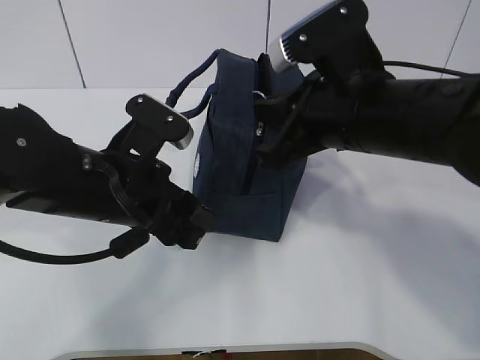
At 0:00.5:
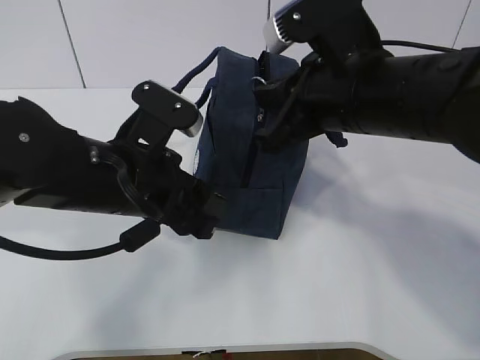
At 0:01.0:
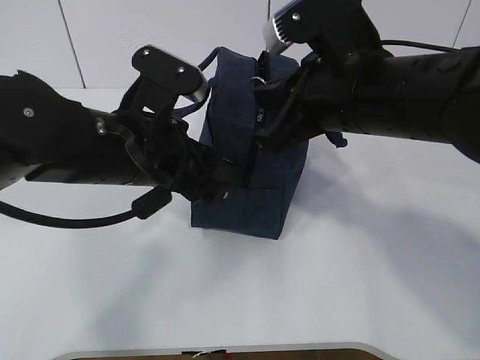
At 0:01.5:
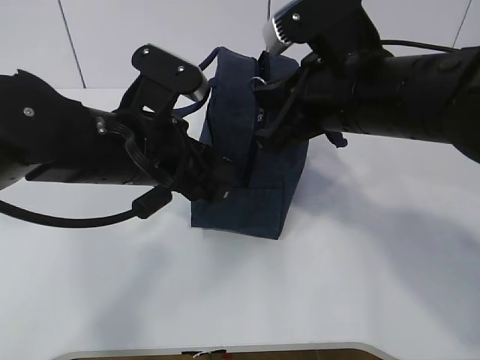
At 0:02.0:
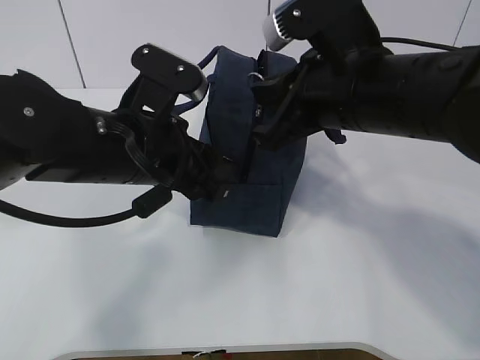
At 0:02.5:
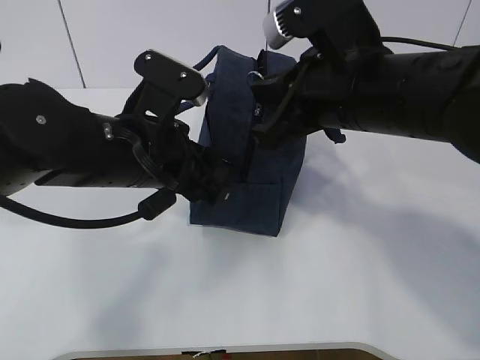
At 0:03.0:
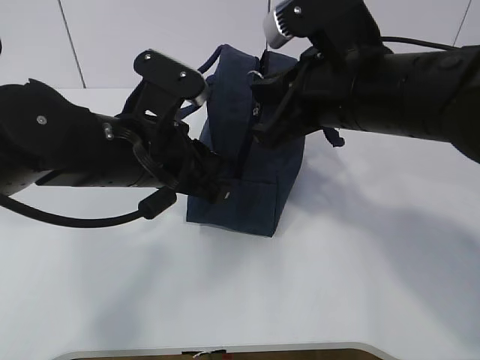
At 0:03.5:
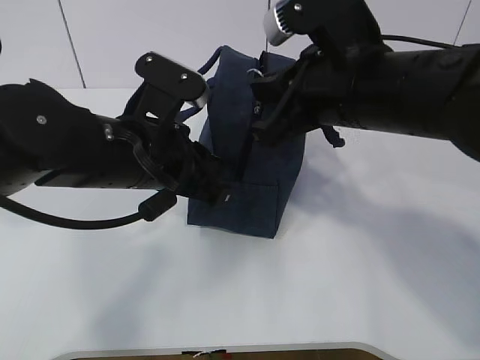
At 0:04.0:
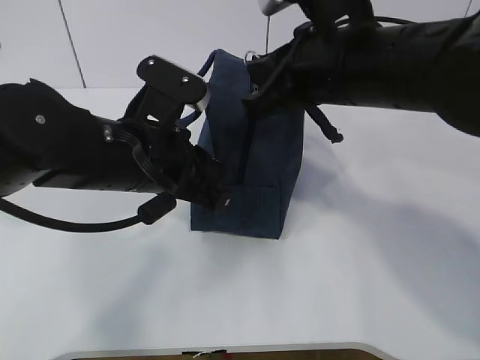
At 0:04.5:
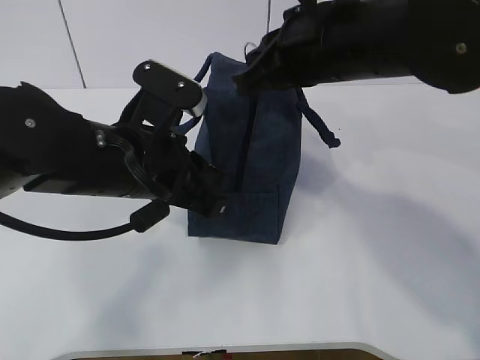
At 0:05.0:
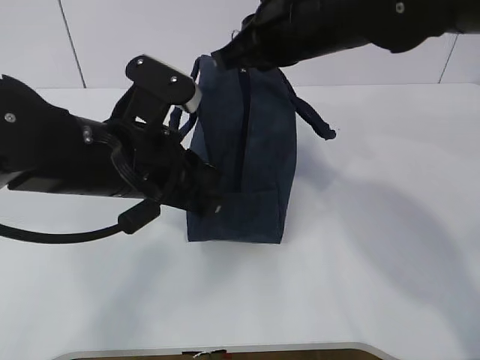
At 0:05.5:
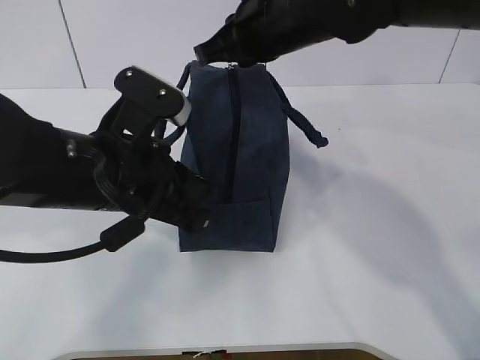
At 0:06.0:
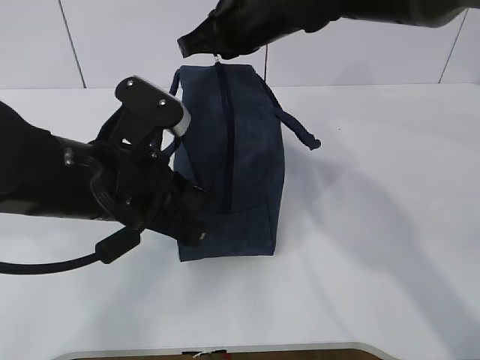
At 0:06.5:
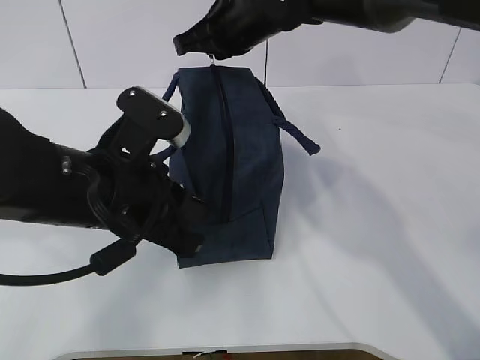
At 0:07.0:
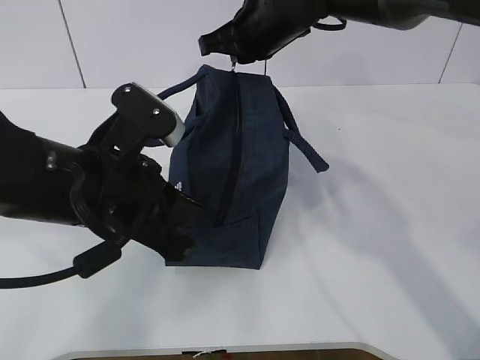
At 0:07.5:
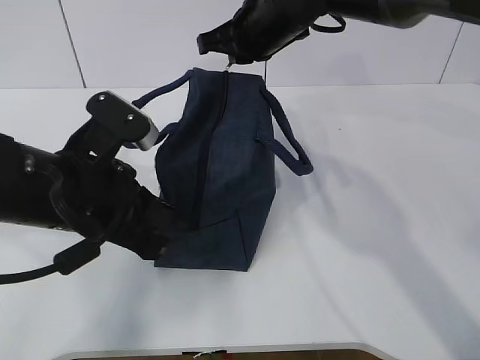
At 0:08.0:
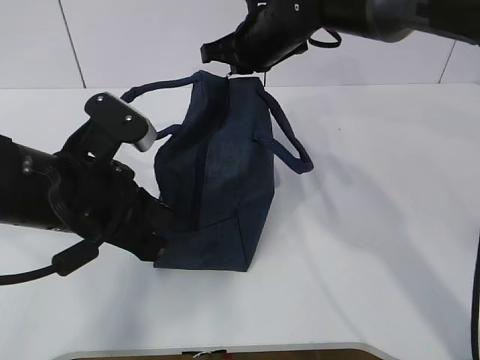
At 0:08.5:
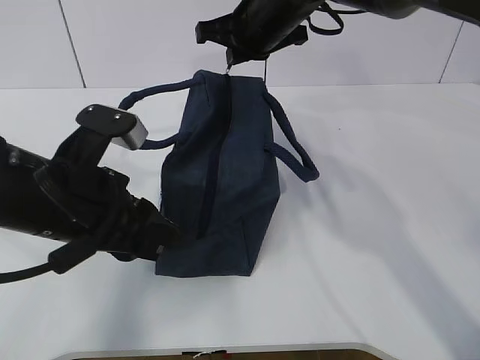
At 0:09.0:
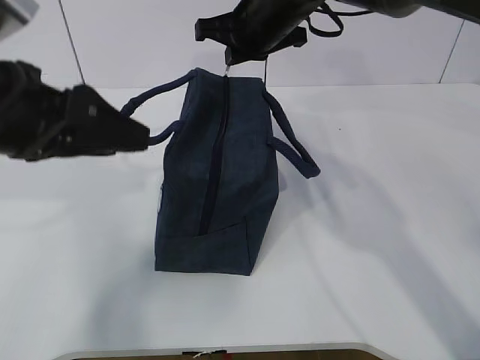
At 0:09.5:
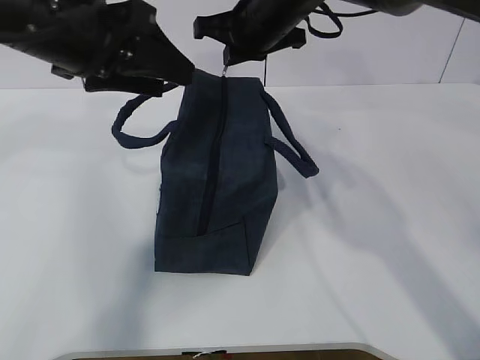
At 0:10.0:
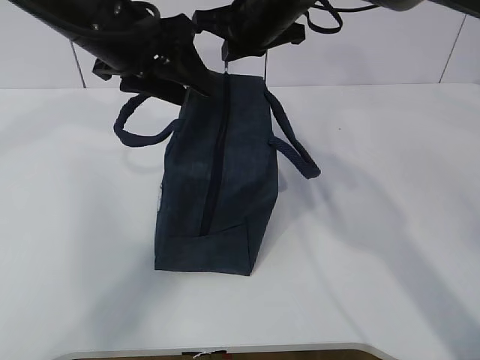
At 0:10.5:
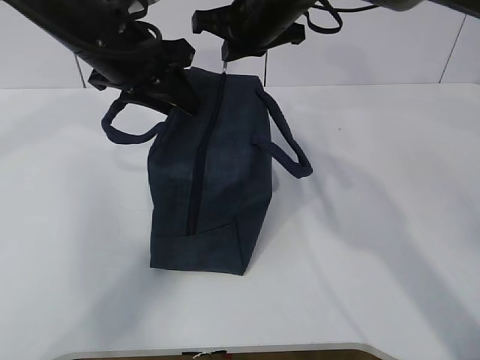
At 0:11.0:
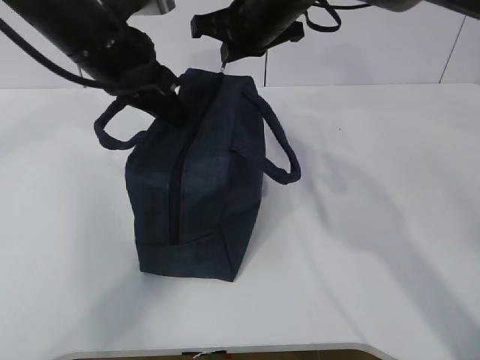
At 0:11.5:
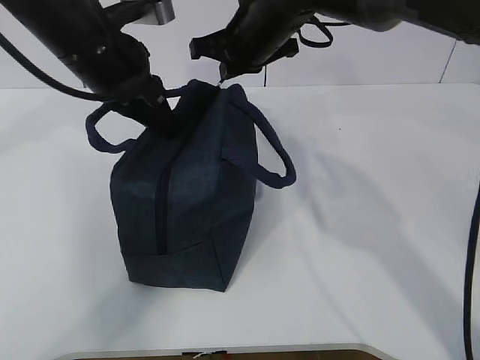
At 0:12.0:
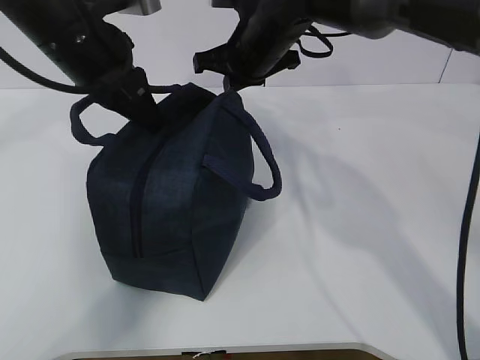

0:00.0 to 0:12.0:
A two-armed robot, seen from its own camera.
Step, 0:00.0 to 0:02.0: Pull the zipper with your right hand.
Step, 0:02.5 to 0:03.5: Grab the lunch bag with your left hand.
0:02.0 to 0:04.0: The left gripper closes.
0:04.0 to 0:06.0: The right gripper travels forward and to the left by about 15 cm.
0:06.0 to 0:08.0: The right gripper travels forward by some 5 cm.
0:08.0 to 0:10.0: The left gripper travels forward and upward by about 15 cm, and opens its fingers.
0:10.0 to 0:12.0: The left gripper closes up.

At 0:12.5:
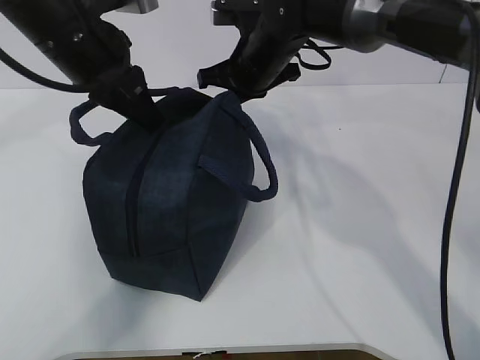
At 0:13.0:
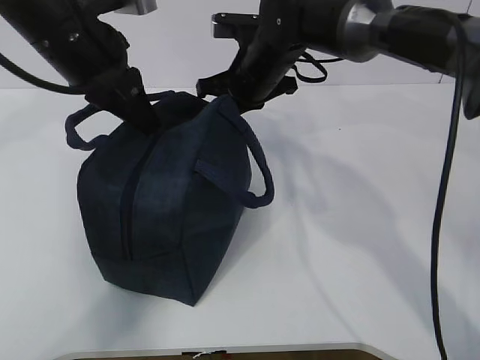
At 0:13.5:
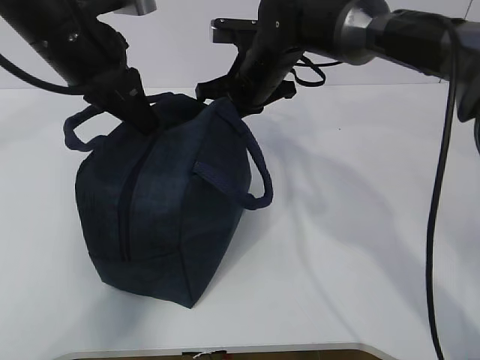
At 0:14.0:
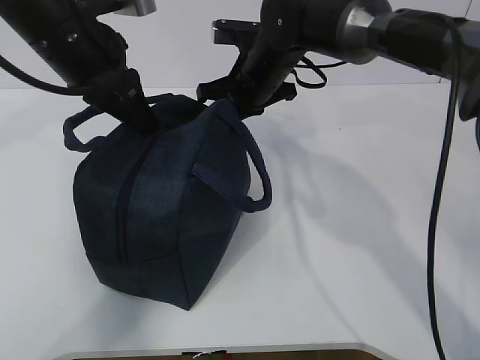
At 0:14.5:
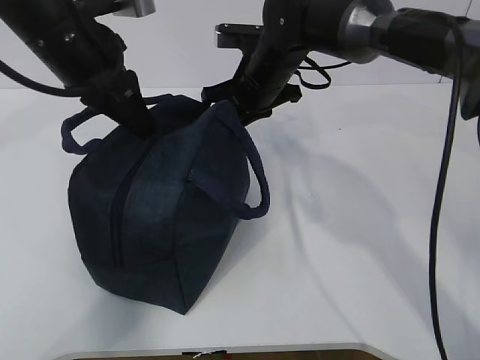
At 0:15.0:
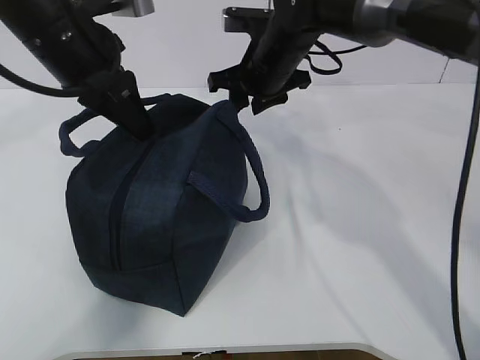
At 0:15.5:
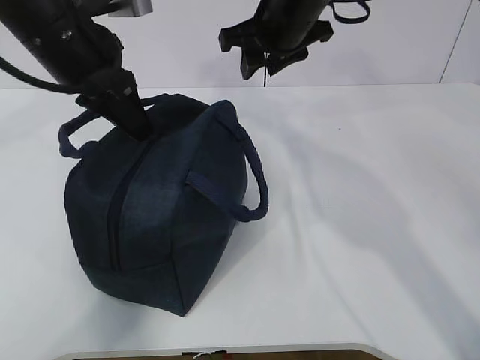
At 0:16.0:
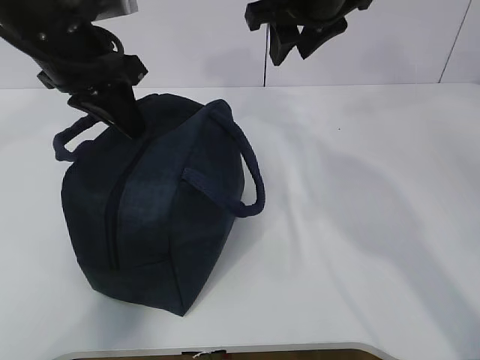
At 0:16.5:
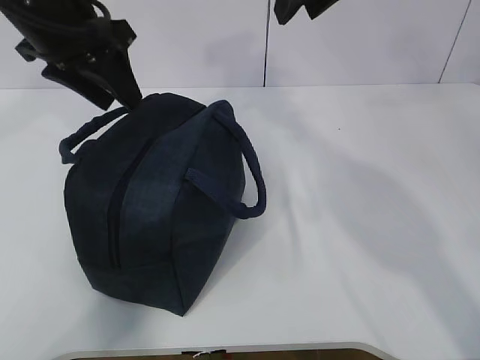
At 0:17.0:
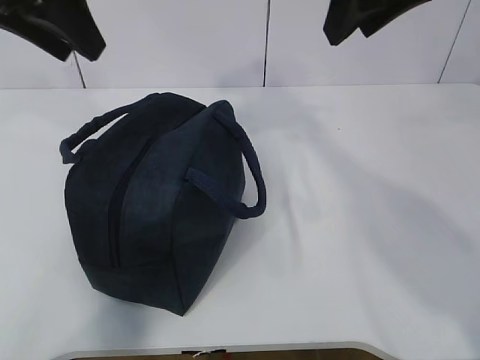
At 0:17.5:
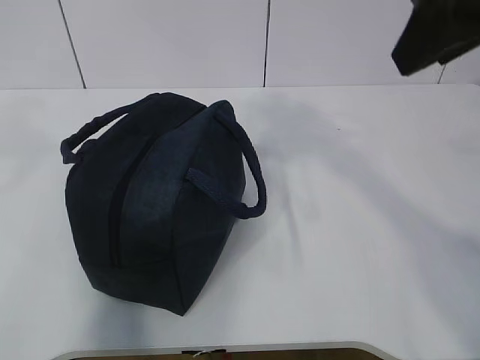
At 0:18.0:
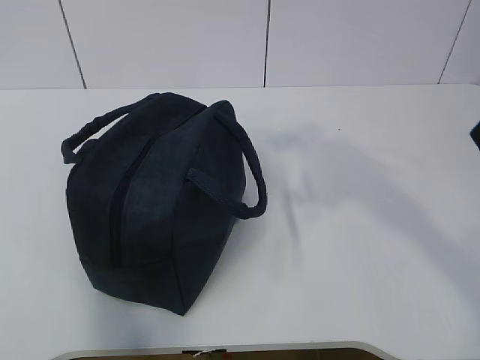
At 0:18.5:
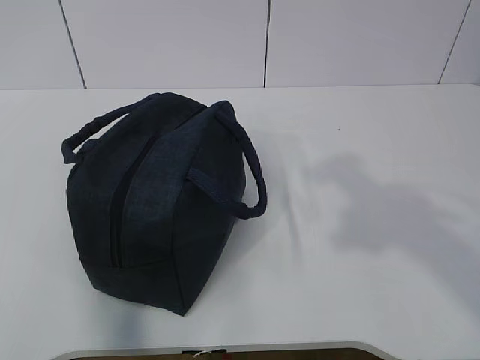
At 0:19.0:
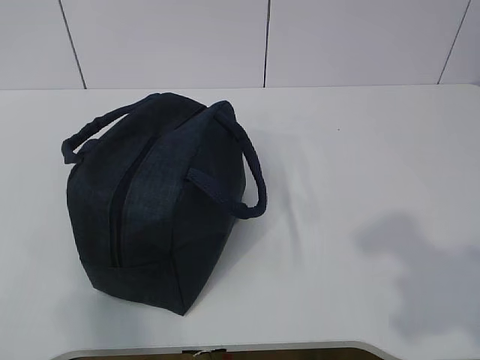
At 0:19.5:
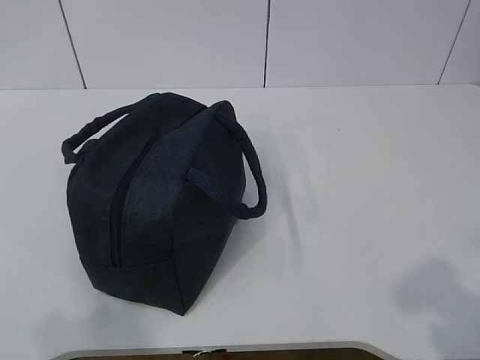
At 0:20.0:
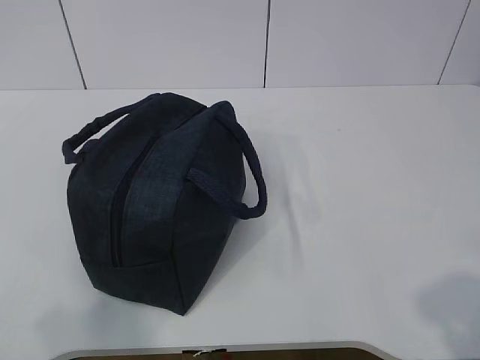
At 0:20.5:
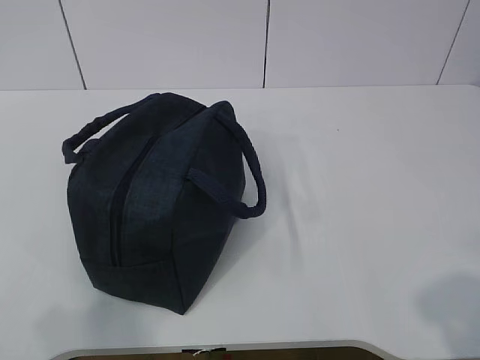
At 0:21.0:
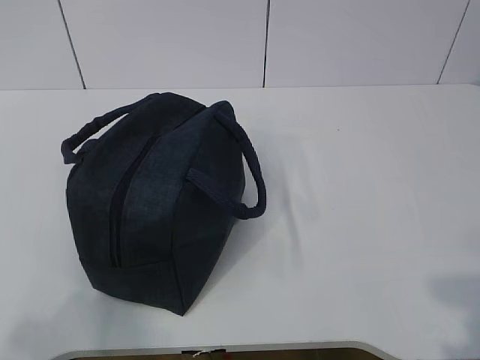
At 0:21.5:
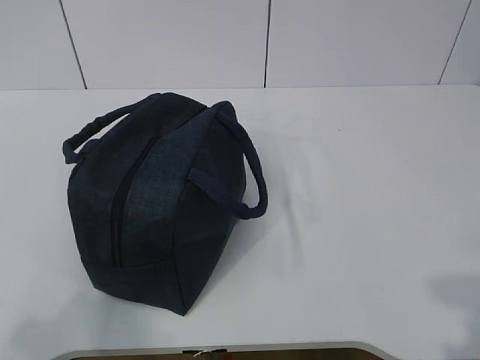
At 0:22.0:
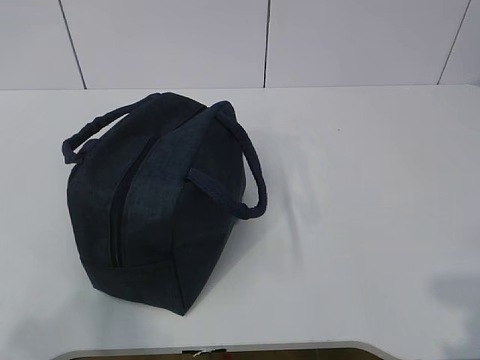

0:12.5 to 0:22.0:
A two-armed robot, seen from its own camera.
0:12.5 to 0:14.5: There are only small adjustments of the grippers.
0:14.5 to 0:16.5: The right gripper travels upward and backward by some 20 cm, and opens its fingers, while the left gripper opens up.
0:16.5 to 0:18.0: The right gripper moves backward and to the right, about 20 cm, while the left gripper travels backward, to the left and upward by about 30 cm.
0:18.0 to 0:20.0: The right gripper goes some 25 cm backward, downward and to the right. The left gripper moves downward and backward, some 20 cm.
